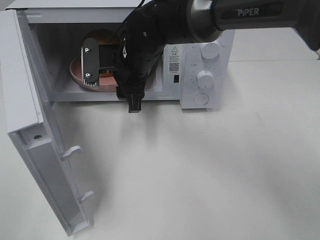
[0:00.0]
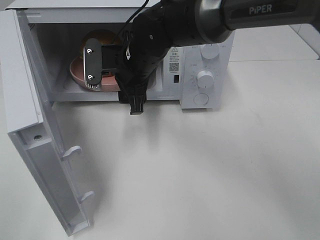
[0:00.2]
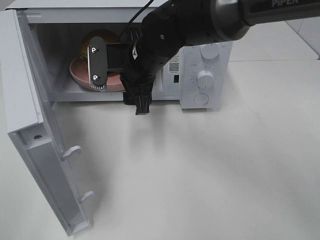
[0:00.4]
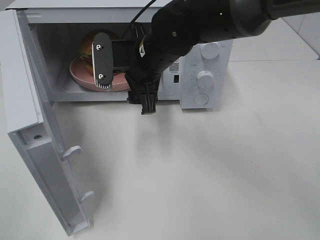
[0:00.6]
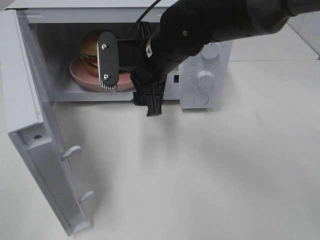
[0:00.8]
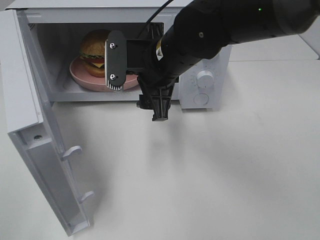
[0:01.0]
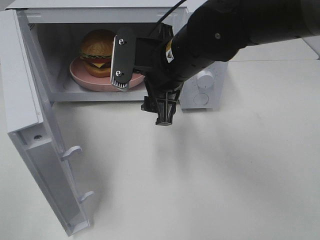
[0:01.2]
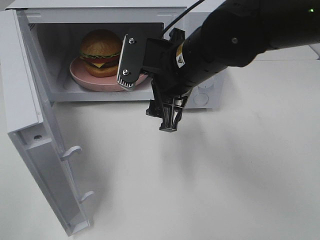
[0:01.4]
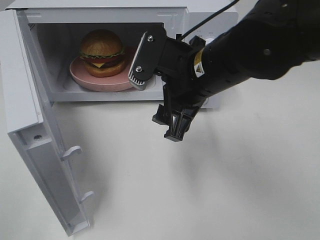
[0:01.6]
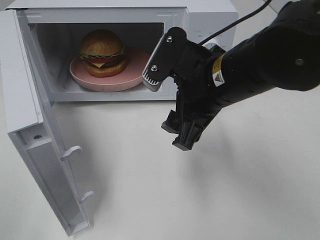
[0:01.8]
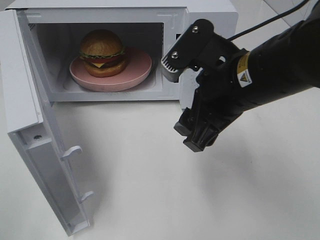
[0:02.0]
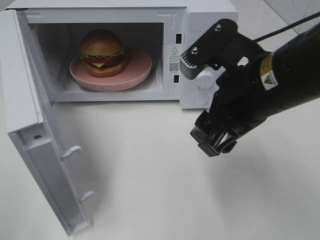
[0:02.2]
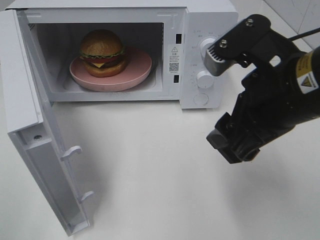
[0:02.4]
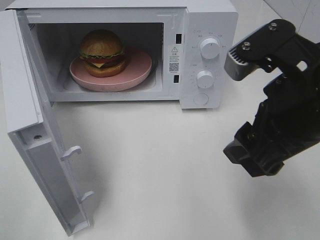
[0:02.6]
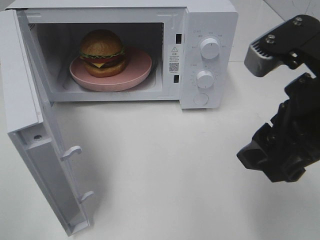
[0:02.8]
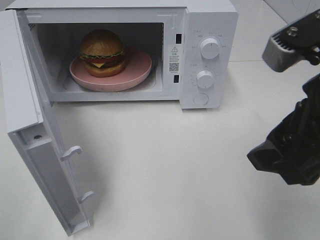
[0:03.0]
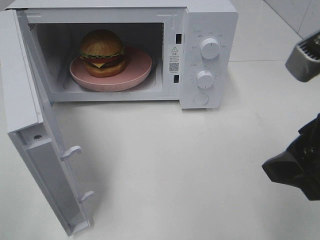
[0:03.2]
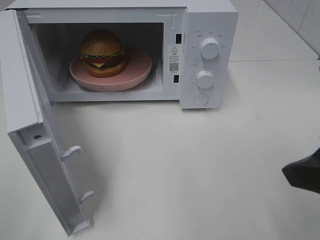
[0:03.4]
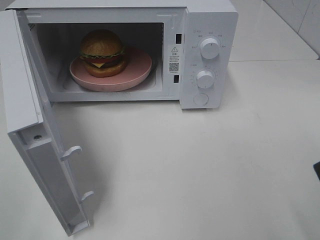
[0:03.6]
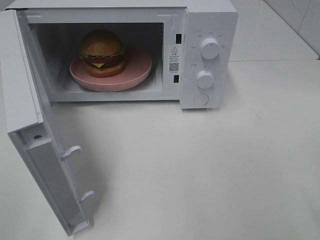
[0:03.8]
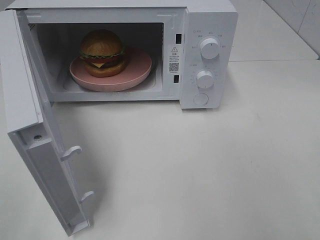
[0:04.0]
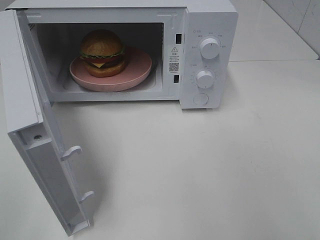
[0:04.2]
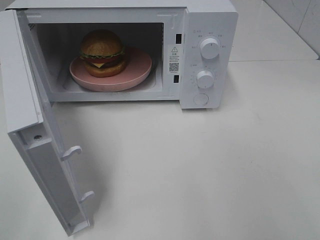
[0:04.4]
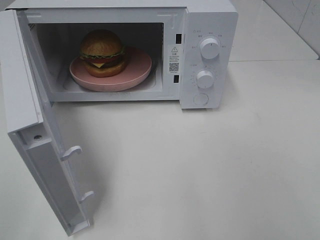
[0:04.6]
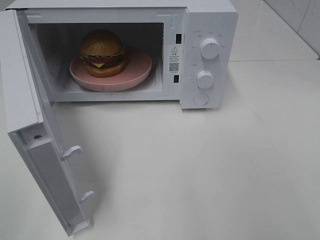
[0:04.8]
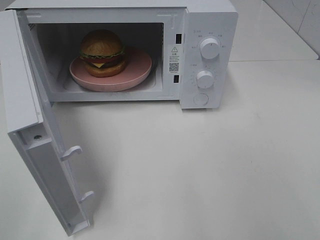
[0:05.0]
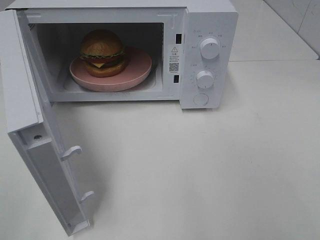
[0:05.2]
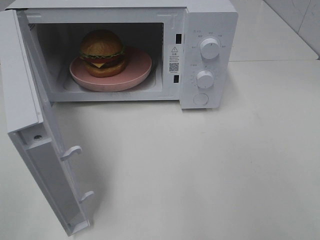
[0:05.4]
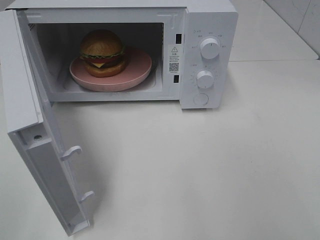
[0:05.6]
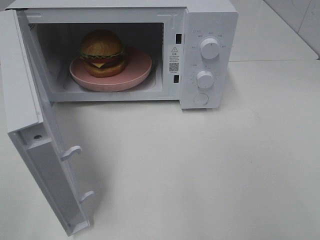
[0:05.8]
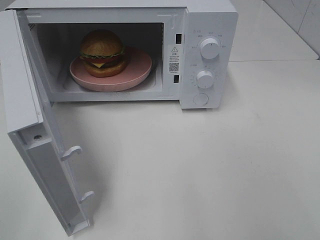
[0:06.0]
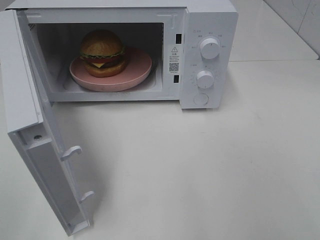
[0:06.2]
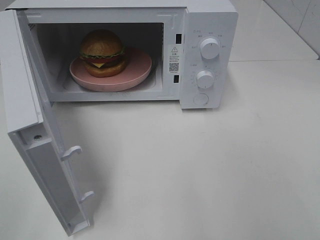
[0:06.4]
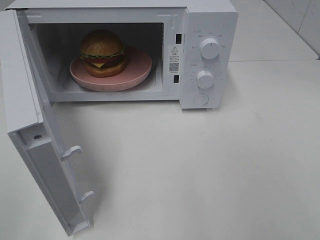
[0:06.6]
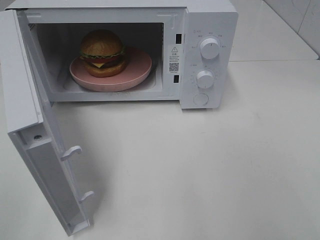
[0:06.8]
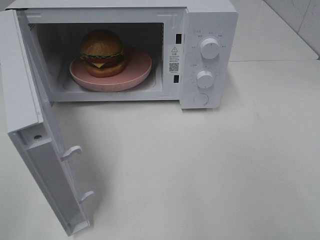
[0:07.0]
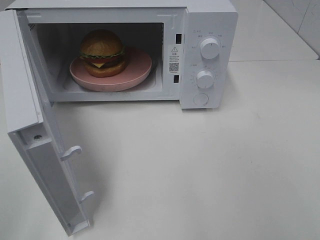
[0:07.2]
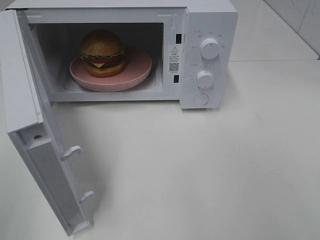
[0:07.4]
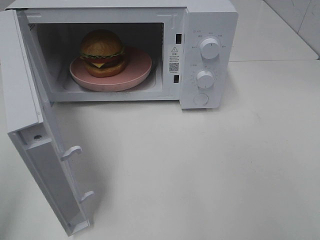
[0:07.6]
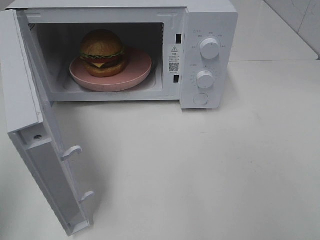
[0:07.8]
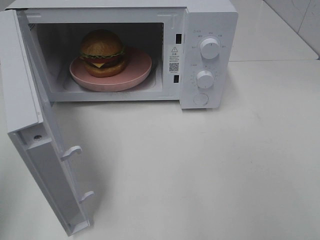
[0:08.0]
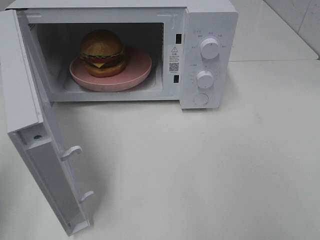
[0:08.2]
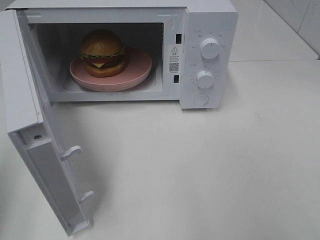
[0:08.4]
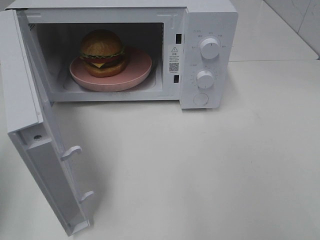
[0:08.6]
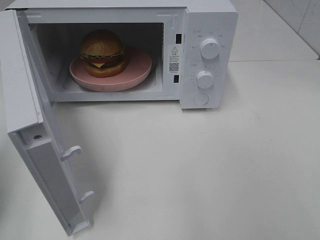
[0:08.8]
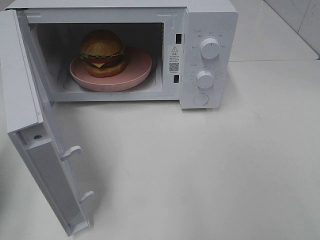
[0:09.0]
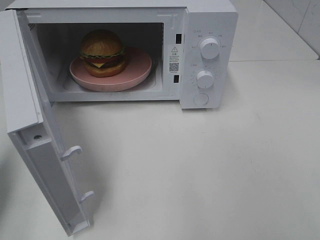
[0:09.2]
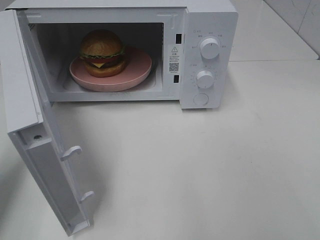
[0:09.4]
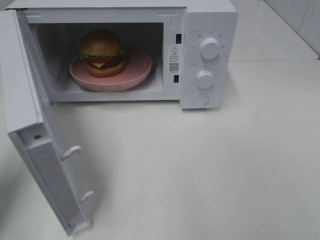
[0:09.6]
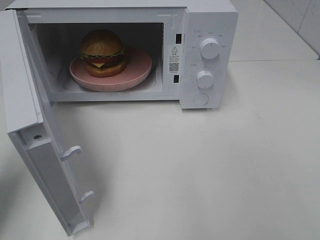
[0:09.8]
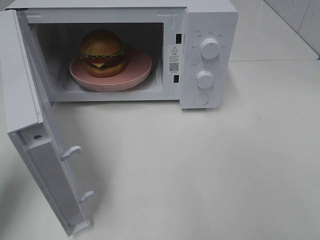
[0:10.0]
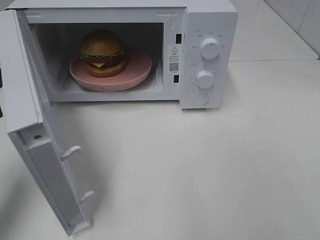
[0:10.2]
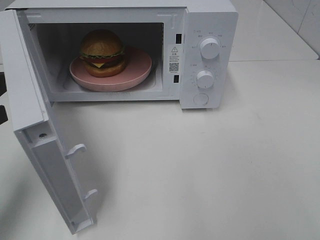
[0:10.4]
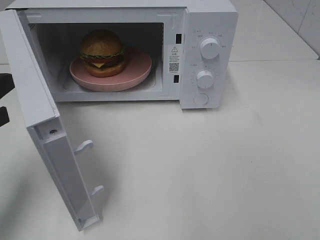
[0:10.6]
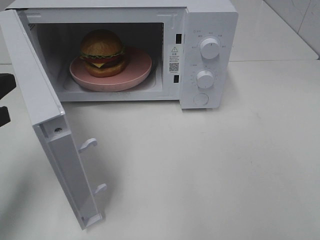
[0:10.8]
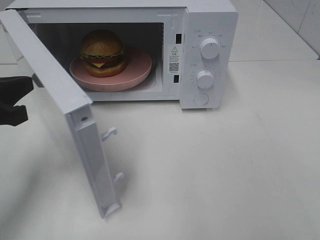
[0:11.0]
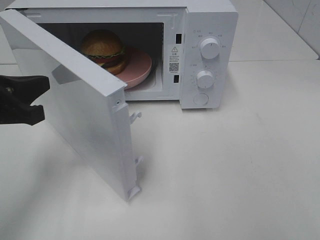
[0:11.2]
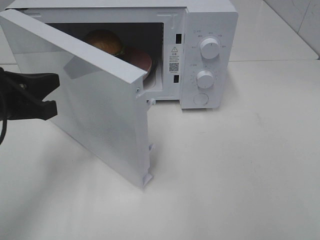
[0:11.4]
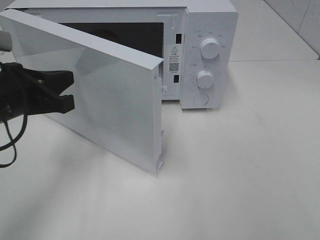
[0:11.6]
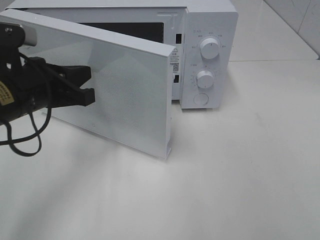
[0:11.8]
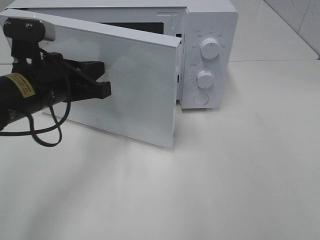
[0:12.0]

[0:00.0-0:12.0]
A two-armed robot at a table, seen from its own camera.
Task of the whole recording: Heat the burger.
0:00.0 to 0:01.6: The right gripper travels backward and to the right by approximately 15 cm.
0:01.6 to 0:03.0: The right gripper shifts about 20 cm backward, to the right and upward.
0:03.0 to 0:04.4: The right gripper moves to the right and backward, approximately 15 cm.
0:07.6 to 0:09.0: The left gripper moves forward and downward, about 15 cm.
0:09.0 to 0:10.4: The left gripper is displaced to the right by about 5 cm.
0:10.4 to 0:12.0: The left gripper is displaced to the right and forward by some 15 cm.

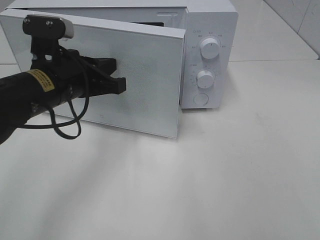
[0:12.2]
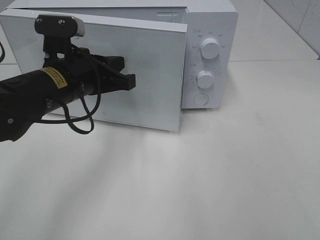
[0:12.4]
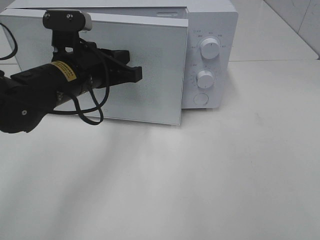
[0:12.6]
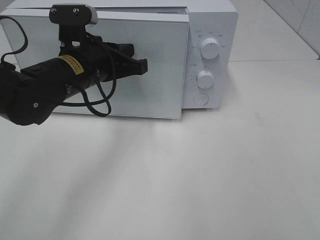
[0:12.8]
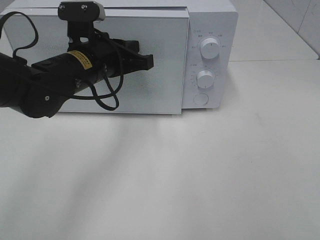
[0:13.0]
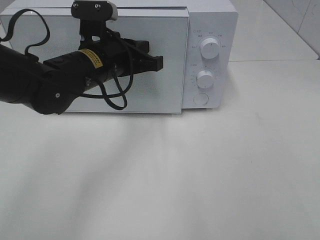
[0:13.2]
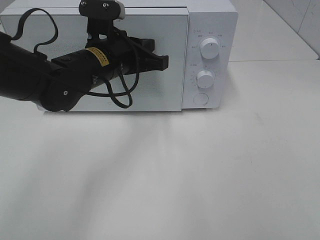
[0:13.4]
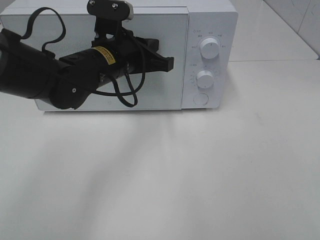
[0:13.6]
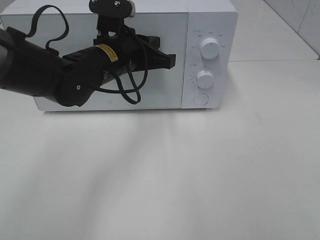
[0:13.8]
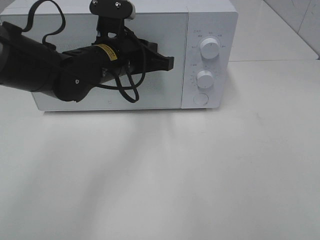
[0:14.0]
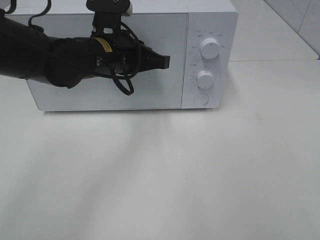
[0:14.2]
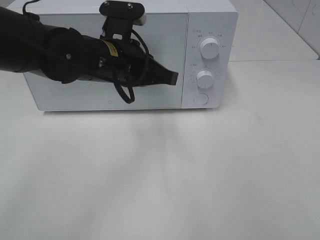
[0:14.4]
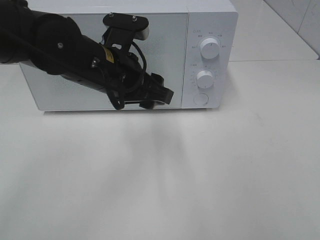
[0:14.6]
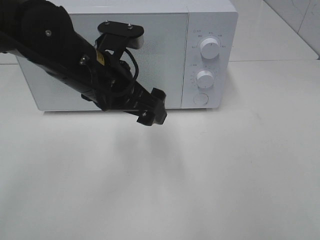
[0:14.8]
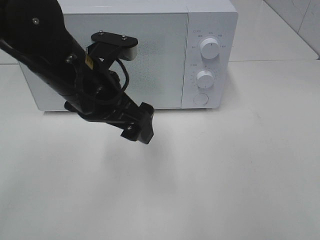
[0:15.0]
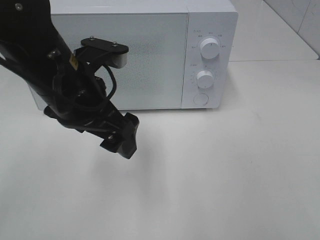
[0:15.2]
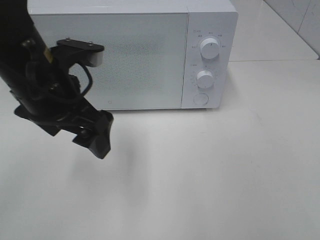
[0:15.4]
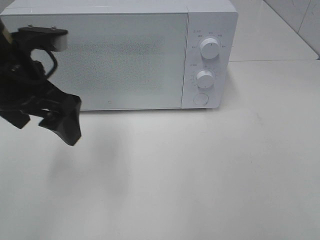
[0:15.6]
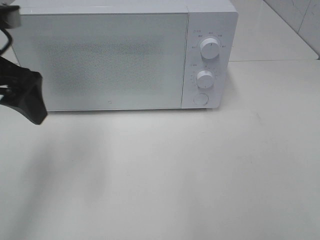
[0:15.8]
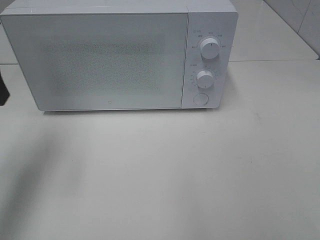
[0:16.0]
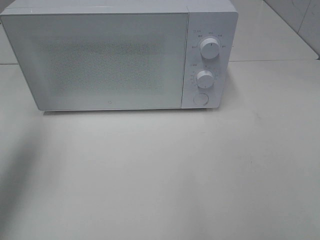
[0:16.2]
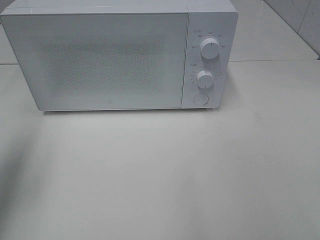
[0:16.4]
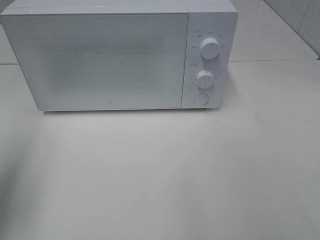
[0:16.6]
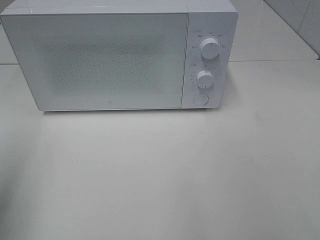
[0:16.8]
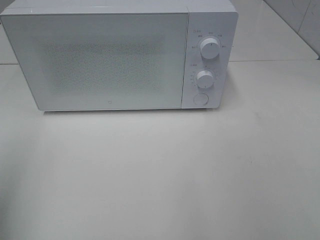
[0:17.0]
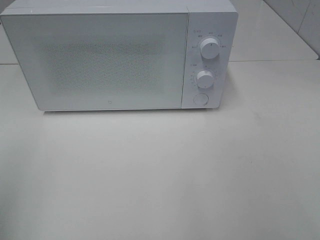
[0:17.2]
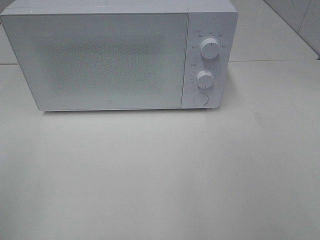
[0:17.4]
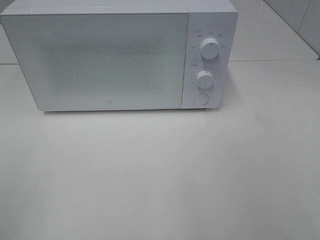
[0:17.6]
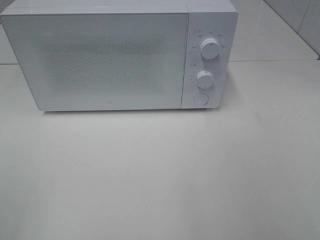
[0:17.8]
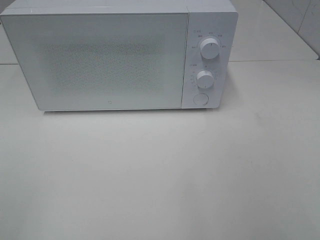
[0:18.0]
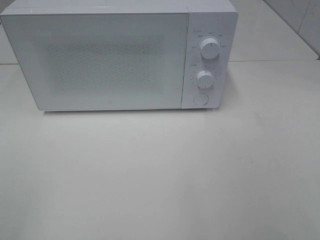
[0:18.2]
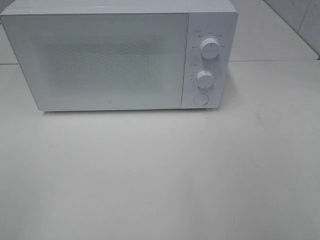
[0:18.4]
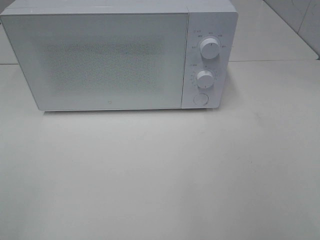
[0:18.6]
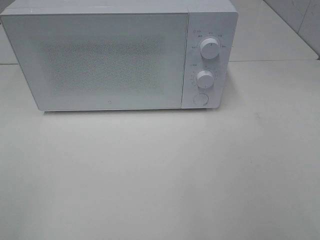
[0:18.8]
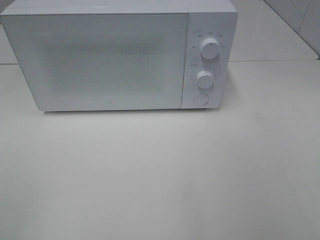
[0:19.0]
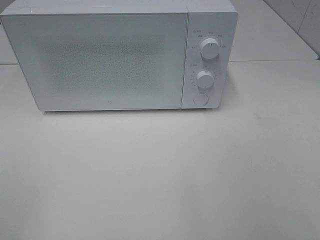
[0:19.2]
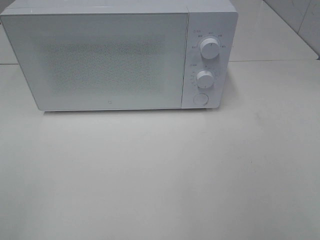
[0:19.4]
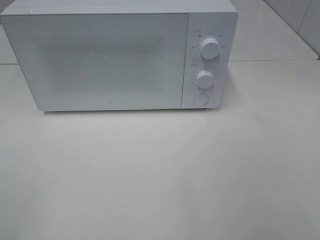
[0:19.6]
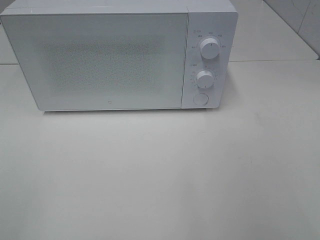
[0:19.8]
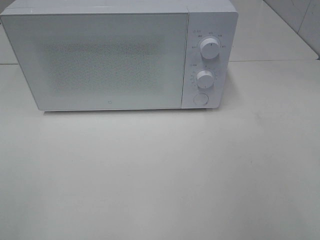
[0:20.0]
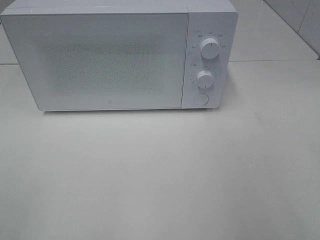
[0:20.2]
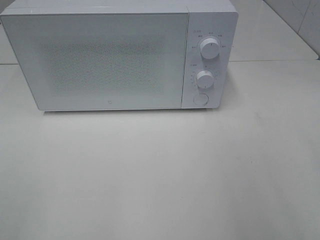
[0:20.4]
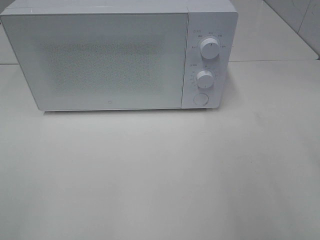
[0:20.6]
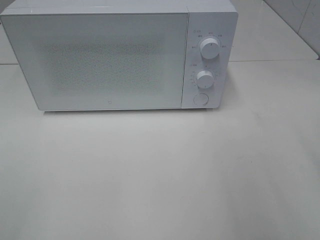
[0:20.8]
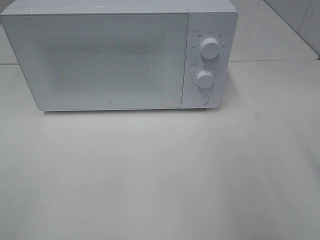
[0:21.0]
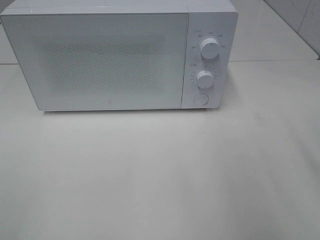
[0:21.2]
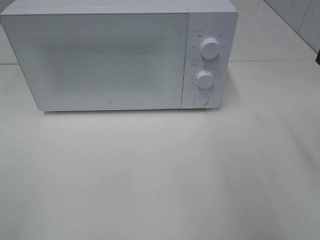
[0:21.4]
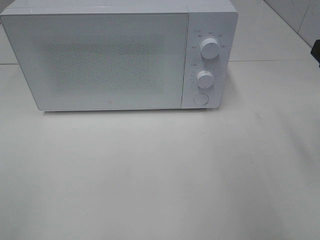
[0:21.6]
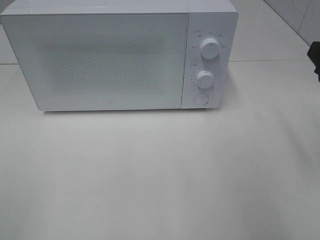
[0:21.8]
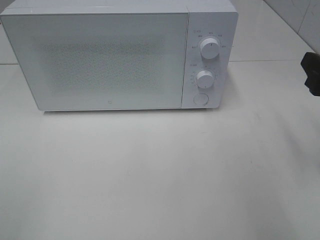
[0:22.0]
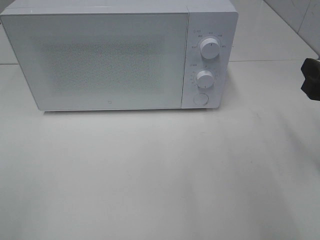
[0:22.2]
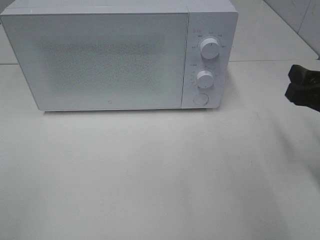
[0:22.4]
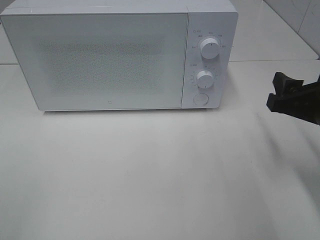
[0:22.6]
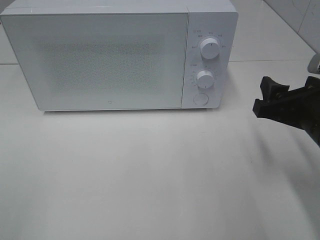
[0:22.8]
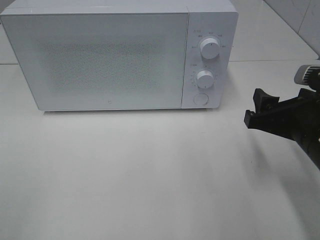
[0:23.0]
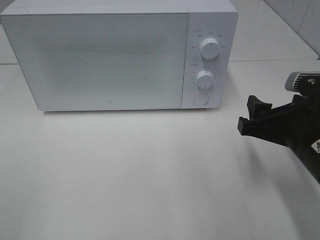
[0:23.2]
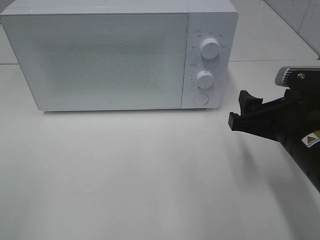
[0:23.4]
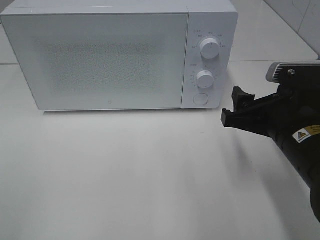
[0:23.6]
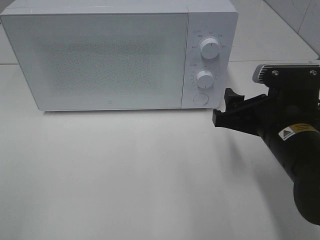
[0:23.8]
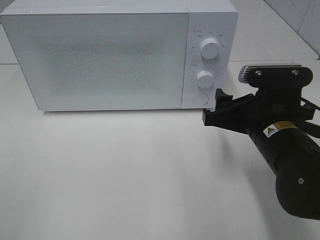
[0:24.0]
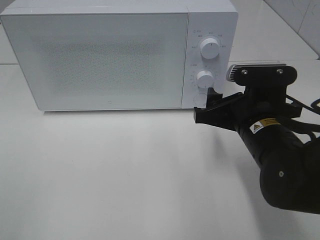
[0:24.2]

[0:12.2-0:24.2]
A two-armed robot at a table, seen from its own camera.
Task of the whole recording: Heat the burger.
Step, 0:12.2 to 0:14.4: Left hand: close the microwave door.
0:12.2 to 0:13.8: The left gripper moves to the right and forward, some 10 cm.
0:13.8 to 0:15.2: The left gripper travels backward by approximately 10 cm, and opens up.
0:15.2 to 0:16.6: The left gripper is displaced to the left by roughly 25 cm.
0:16.6 to 0:18.2: The left gripper heads backward, covering about 20 cm.
0:21.2 to 0:22.6: The right gripper heads downward, covering approximately 10 cm.
0:22.6 to 0:24.2: The right gripper shifts approximately 10 cm to the left.
